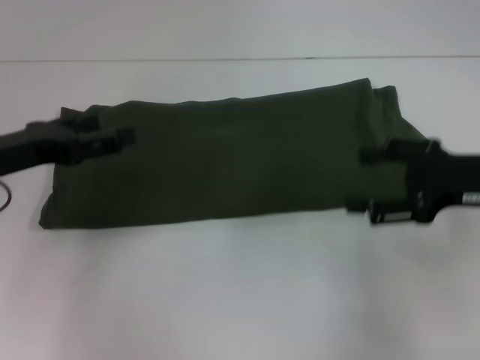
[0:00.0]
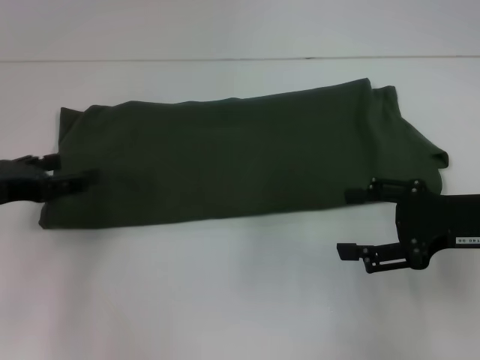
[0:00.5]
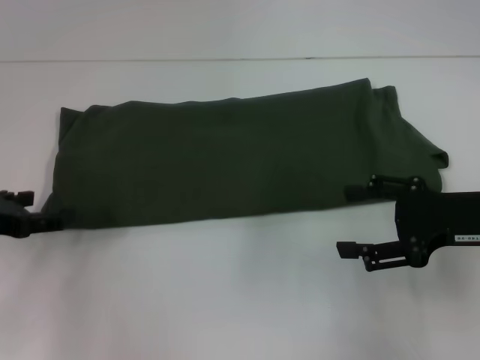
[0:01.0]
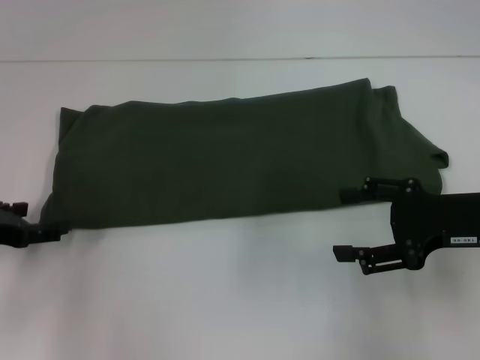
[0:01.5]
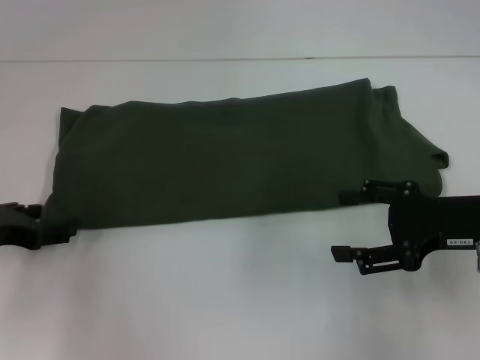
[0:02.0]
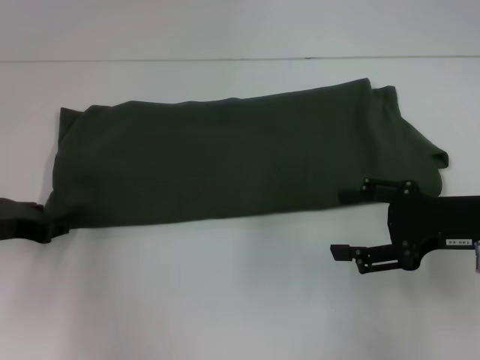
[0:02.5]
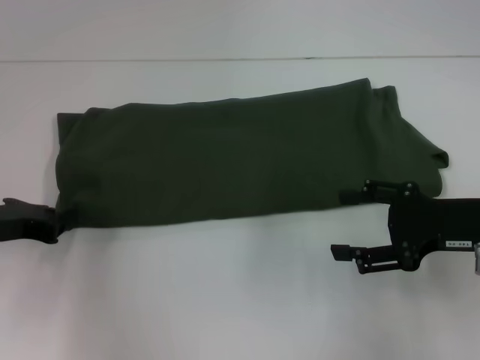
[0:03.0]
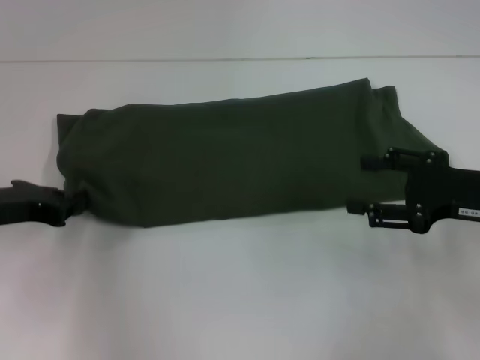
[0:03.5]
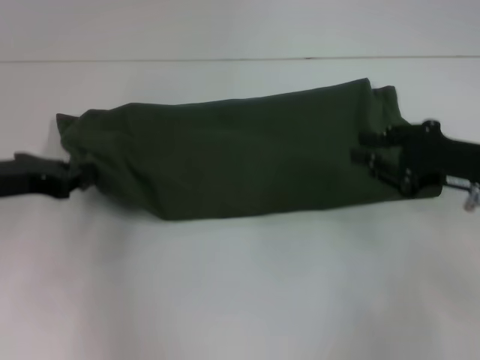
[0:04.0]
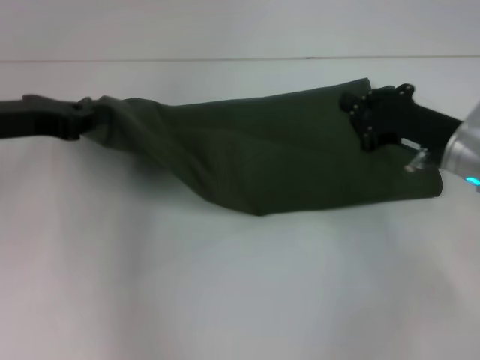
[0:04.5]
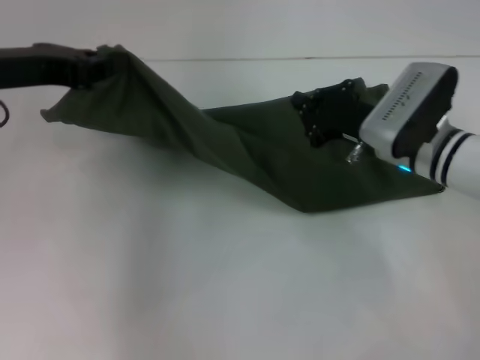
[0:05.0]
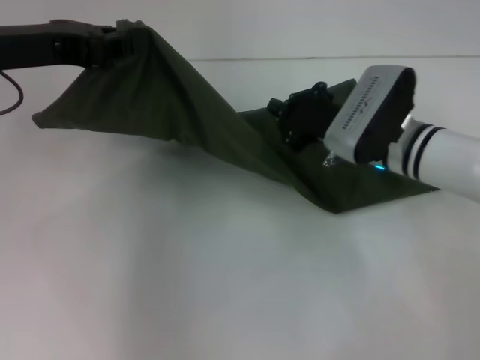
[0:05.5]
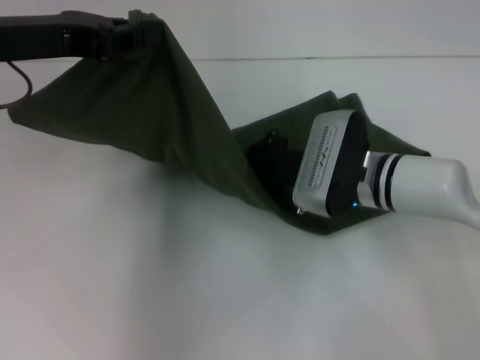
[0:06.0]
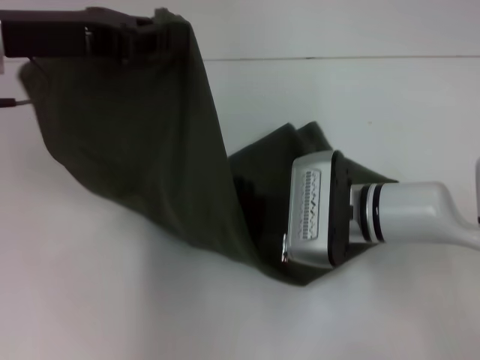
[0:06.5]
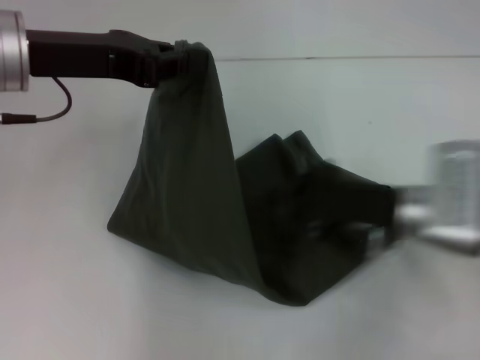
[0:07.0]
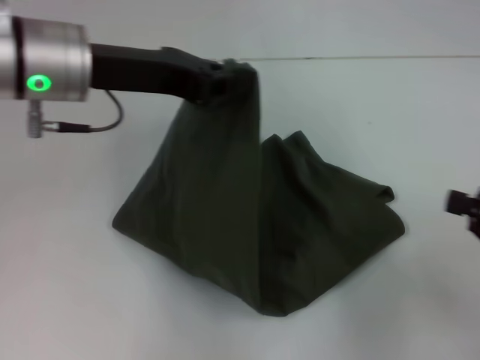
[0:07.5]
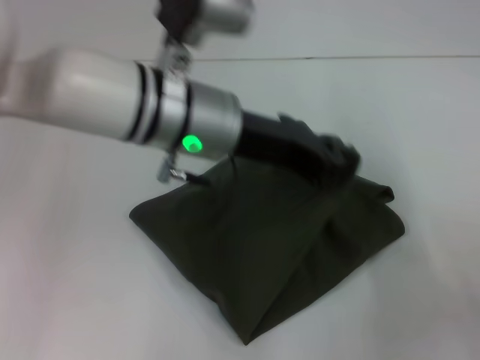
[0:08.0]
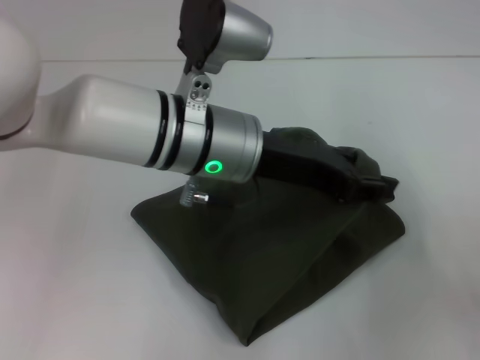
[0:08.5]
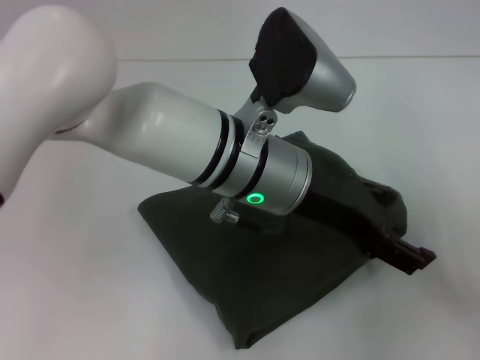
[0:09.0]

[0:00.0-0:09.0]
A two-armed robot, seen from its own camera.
0:00.0 to 0:02.0: The left gripper moves downward, about 5 cm.
0:02.0 to 0:04.5: The left gripper shifts some 10 cm upward, and closes its fingers. Meanwhile the right gripper heads forward, covering some 5 cm, and closes its fingers.
0:04.5 to 0:07.0: The left gripper shifts about 10 cm to the right and upward; the right gripper moves to the left, some 5 cm.
0:07.0 to 0:09.0: The right gripper shifts approximately 20 cm to the right and backward. The left gripper travels to the right by approximately 20 cm, and opens up.

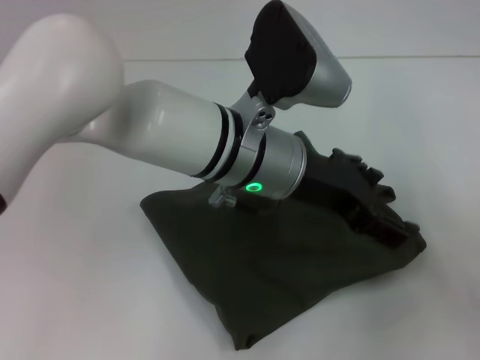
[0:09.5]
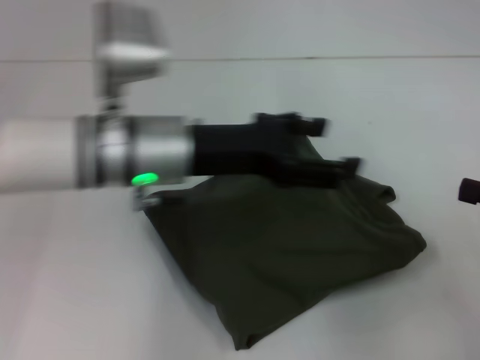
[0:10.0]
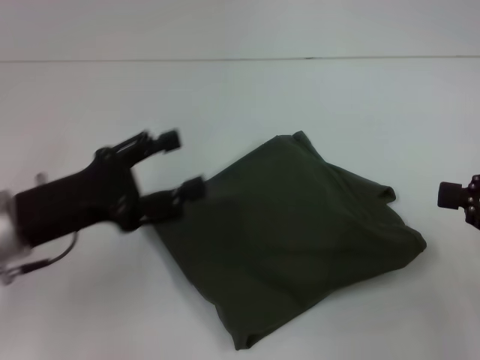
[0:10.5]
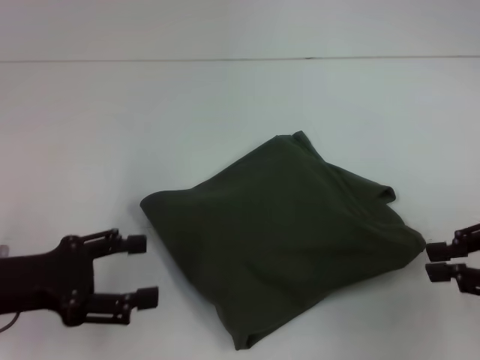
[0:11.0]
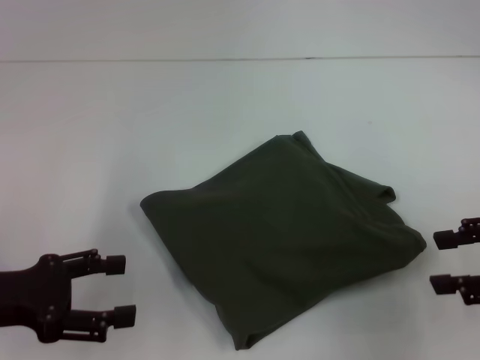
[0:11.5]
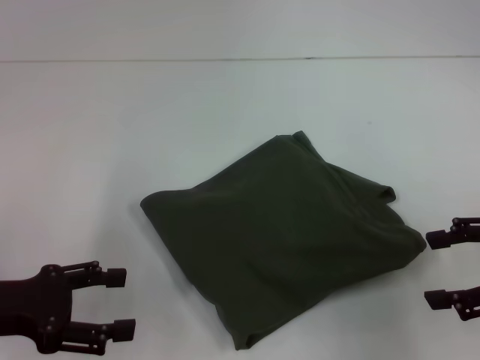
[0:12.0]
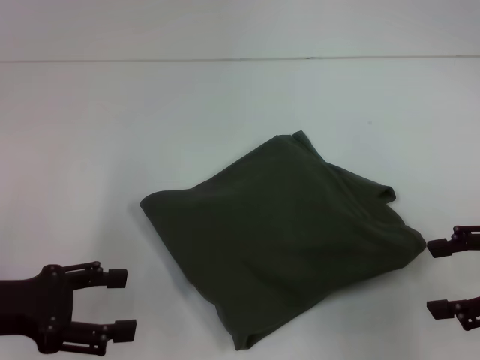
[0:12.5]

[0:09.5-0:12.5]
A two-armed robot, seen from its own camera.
Step, 0:09.5 to 0:11.5: Fold the clothes with your left hand.
0:09.5 to 0:11.0: The left gripper shifts about 25 cm to the left; the right gripper travels to the left and upward by some 10 cm.
0:11.0 to 0:12.5: The right gripper opens.
